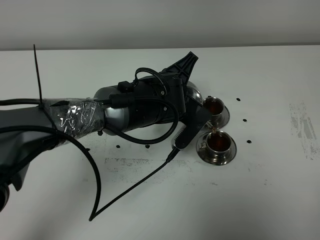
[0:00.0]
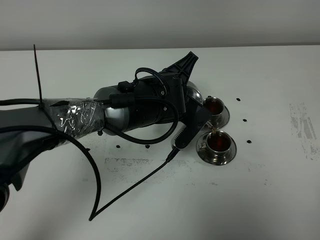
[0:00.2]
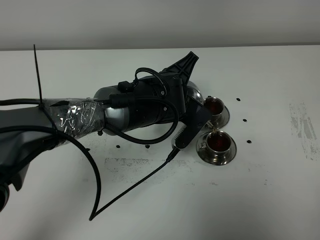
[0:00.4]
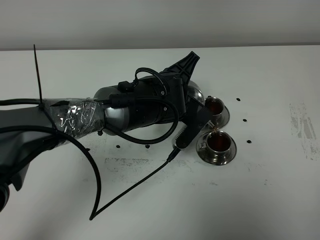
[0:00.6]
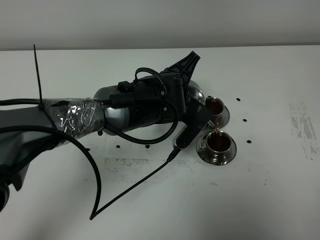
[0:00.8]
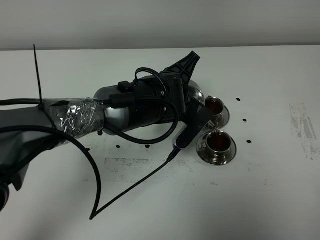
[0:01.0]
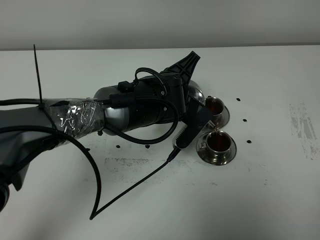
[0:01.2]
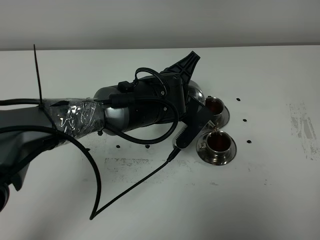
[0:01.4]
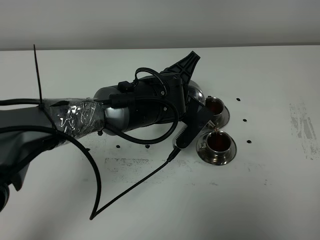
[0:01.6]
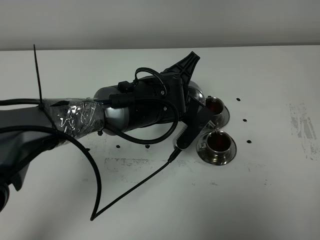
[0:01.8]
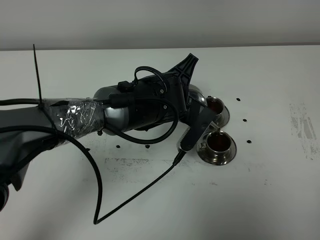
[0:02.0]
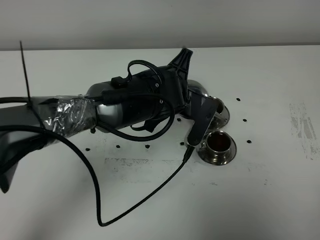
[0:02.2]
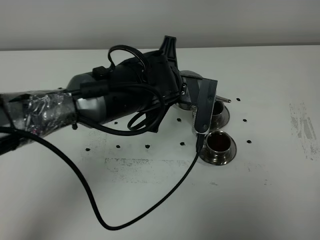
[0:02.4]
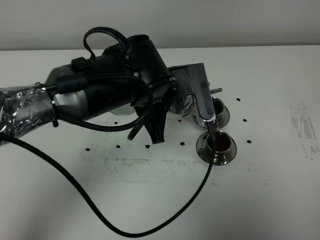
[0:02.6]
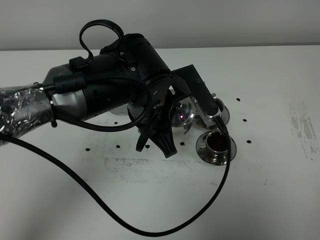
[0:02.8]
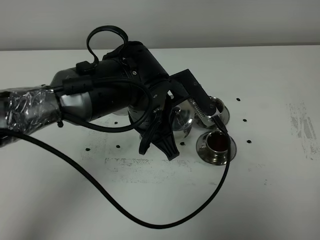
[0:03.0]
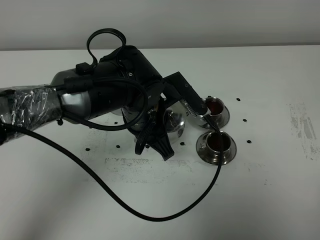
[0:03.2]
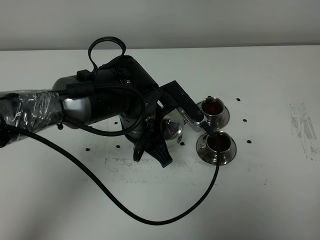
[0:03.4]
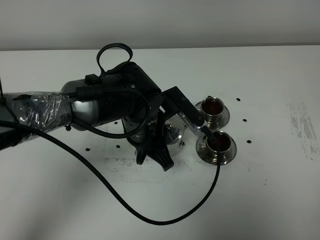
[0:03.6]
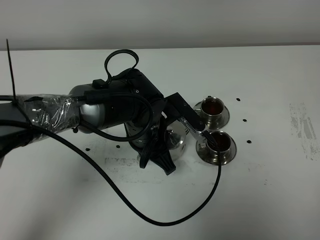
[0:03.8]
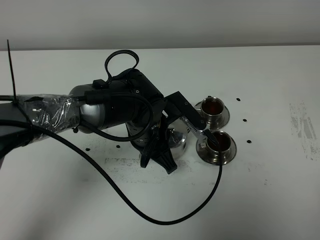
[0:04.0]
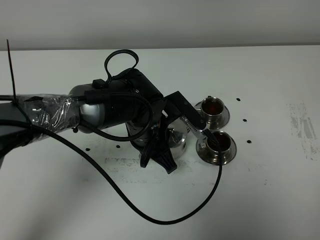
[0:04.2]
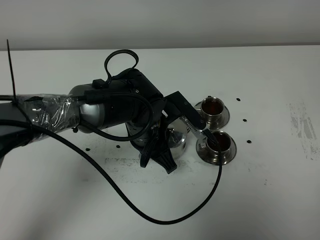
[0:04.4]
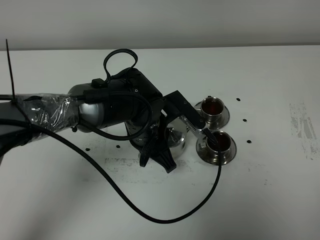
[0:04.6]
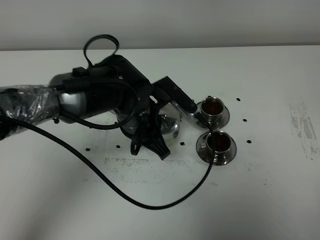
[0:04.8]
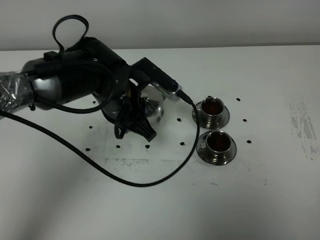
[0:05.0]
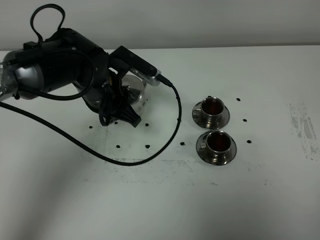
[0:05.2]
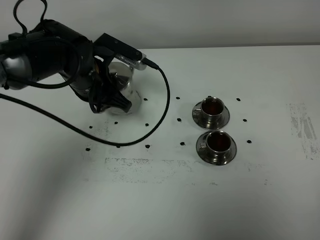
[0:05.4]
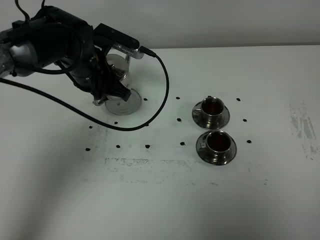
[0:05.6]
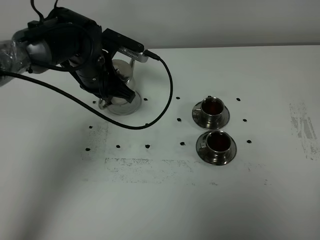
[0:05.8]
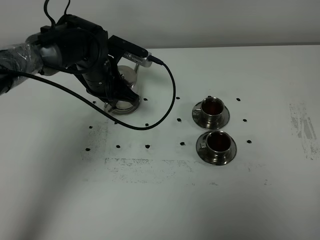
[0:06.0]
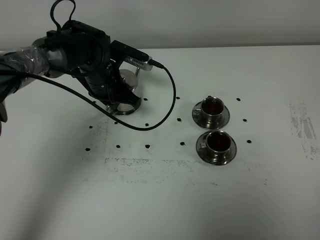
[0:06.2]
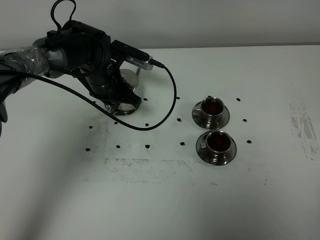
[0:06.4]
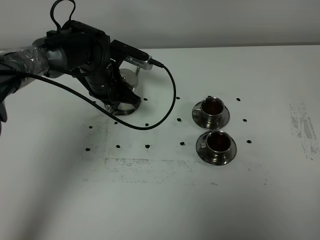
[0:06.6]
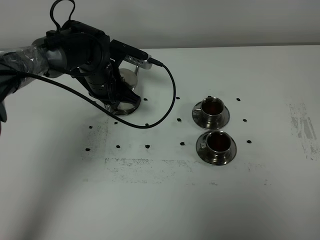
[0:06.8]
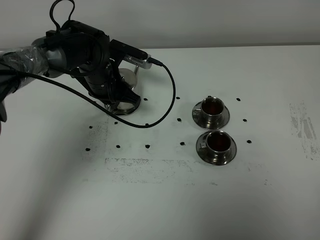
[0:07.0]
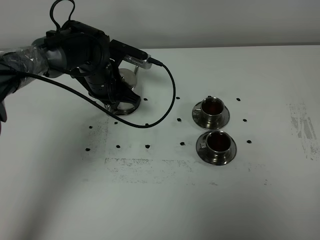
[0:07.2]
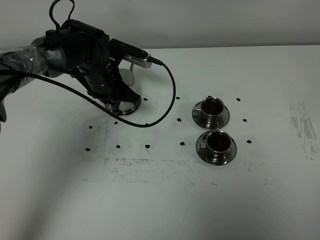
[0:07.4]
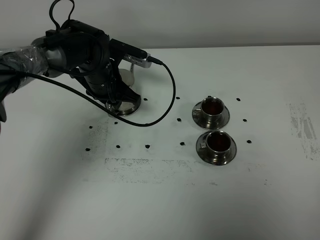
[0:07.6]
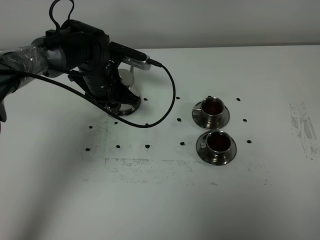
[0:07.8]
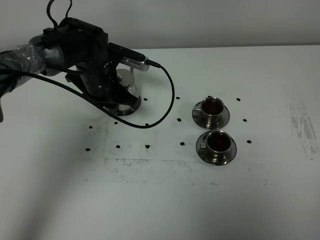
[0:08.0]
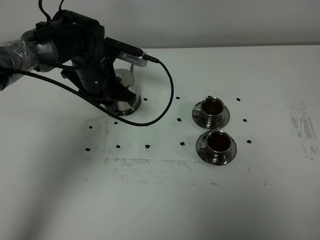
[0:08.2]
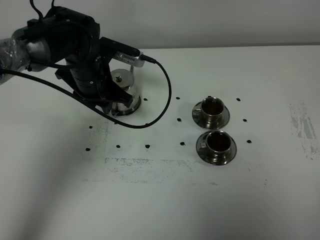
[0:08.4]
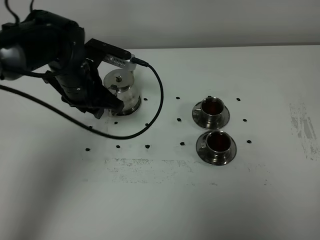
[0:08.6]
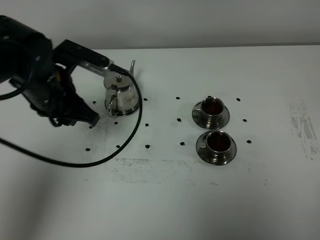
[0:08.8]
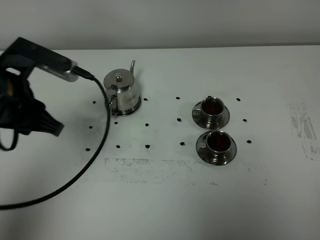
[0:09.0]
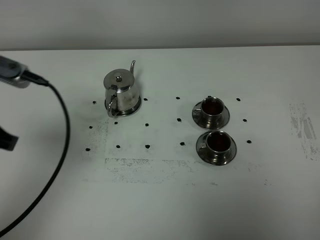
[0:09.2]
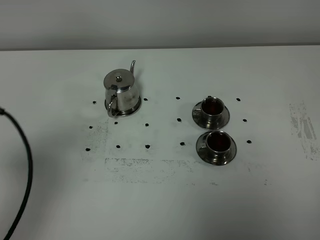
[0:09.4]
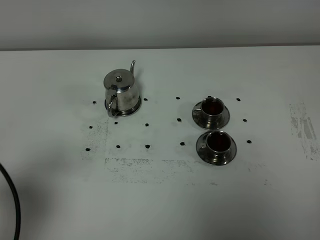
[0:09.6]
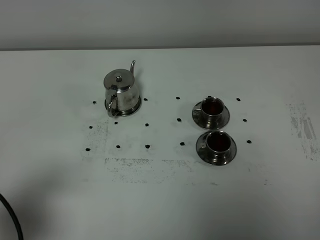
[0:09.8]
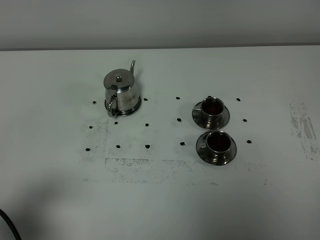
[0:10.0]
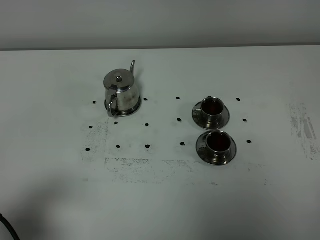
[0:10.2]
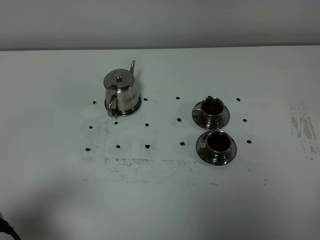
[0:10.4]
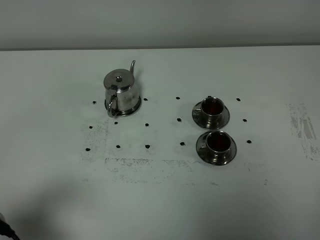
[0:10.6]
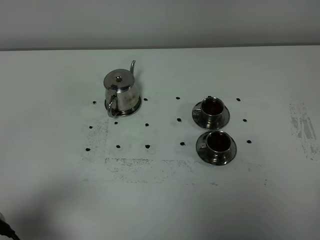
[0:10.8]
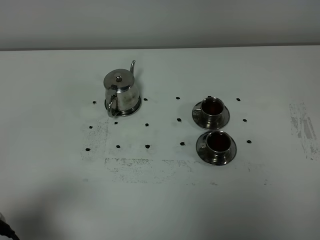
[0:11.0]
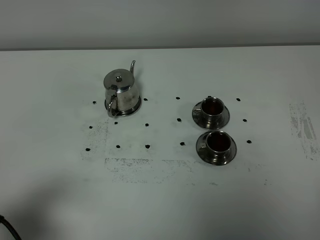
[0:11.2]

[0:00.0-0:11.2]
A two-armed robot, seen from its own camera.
Task of the whole recording: grasp the stainless steel teapot and pour the tea into the two stainless steel teacups one by one, put the stainless steel teapot back in its original place.
0:00.0 to 0:01.6: Both grippers stay about where they are.
0:01.6 to 0:03.2: The left gripper changes place by some 5 cm.
0:03.2 to 0:04.8: The grippers make only small movements.
0:04.8 to 0:06.4: The left gripper travels forward and to the left by approximately 15 cm.
0:06.4 to 0:08.0: The grippers make only small movements.
0:08.0 to 0:09.6: The left gripper goes roughly 40 cm backward, to the left and upward.
0:09.6 to 0:11.2: The left gripper moves downward, approximately 5 cm.

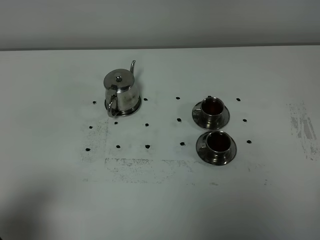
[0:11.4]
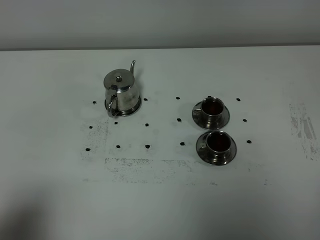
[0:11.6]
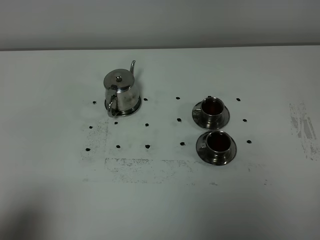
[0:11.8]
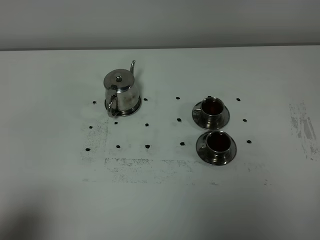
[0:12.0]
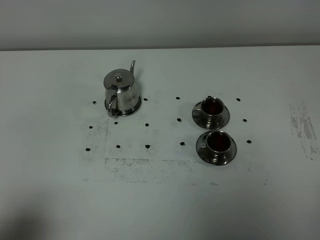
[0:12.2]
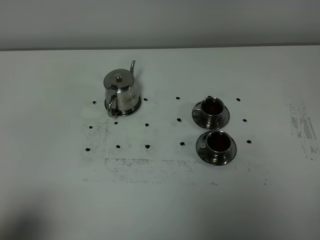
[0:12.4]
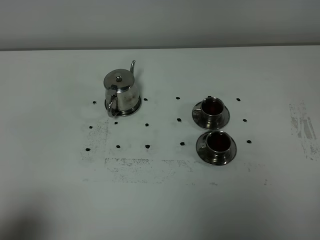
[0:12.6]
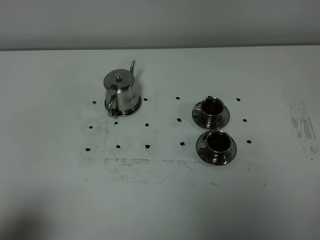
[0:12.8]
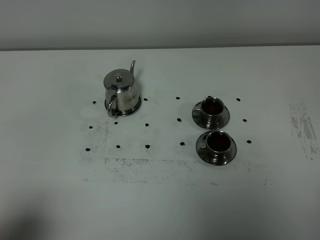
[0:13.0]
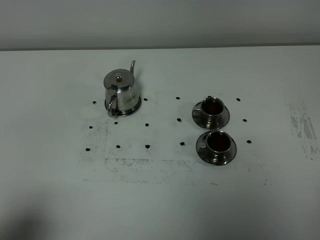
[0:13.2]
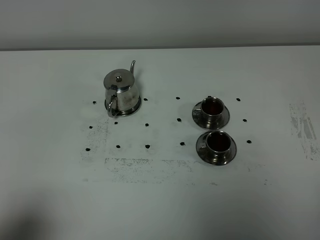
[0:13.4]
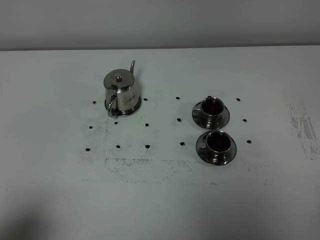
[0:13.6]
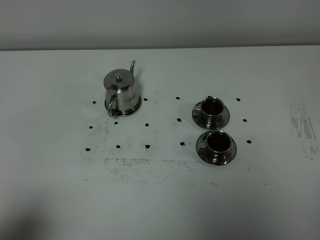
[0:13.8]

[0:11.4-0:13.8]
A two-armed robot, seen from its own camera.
Task of the whole recording: grasp the stainless steel teapot and pour the tea into the two stainless steel teacups one by one, put the stainless steel teapot back in its original place.
0:12.6 to 0:13.8: Both grippers stay put.

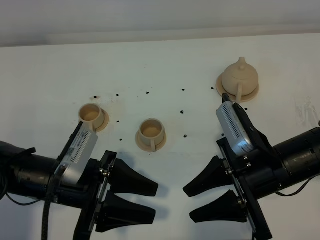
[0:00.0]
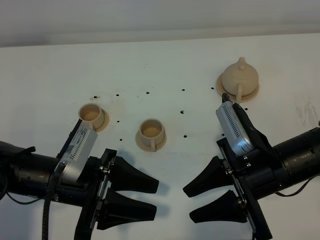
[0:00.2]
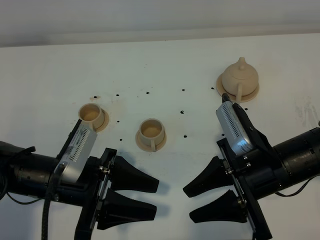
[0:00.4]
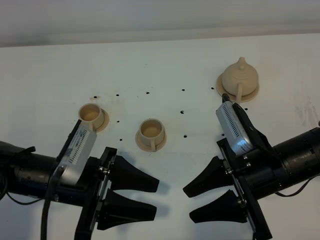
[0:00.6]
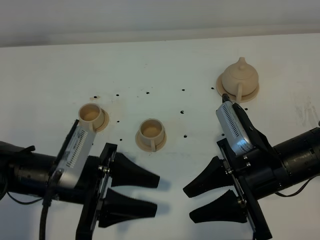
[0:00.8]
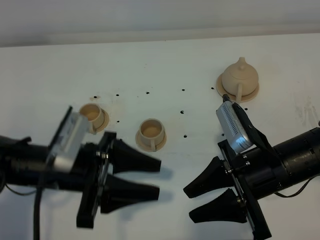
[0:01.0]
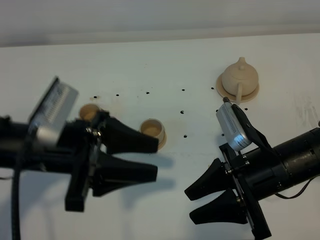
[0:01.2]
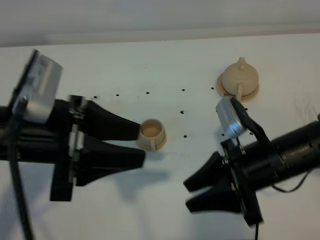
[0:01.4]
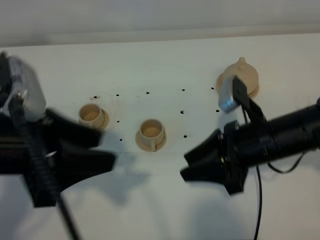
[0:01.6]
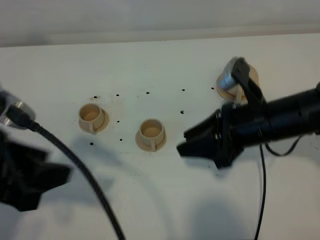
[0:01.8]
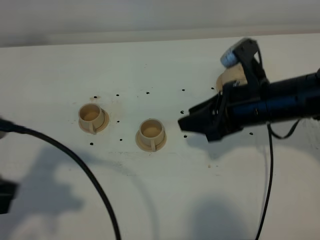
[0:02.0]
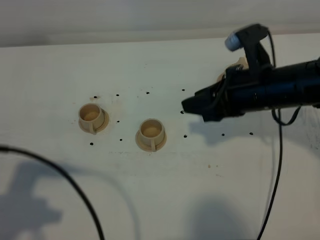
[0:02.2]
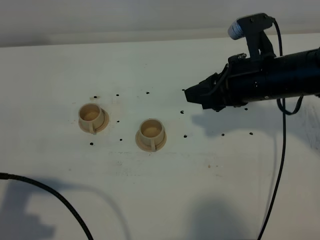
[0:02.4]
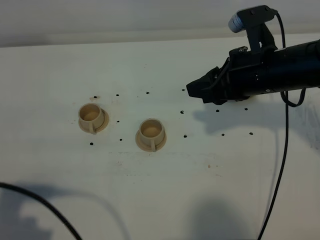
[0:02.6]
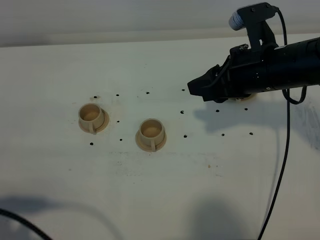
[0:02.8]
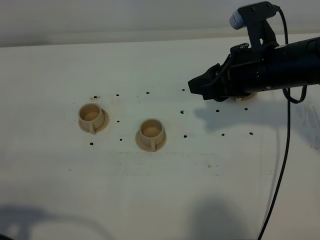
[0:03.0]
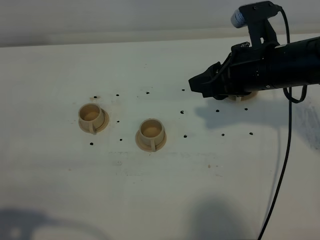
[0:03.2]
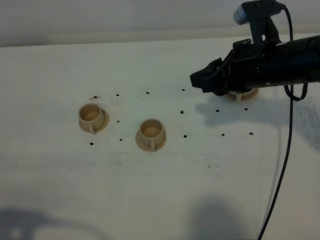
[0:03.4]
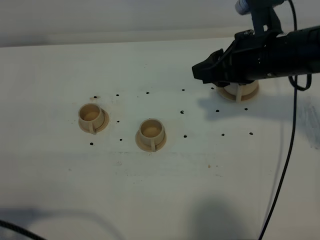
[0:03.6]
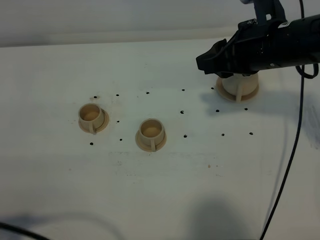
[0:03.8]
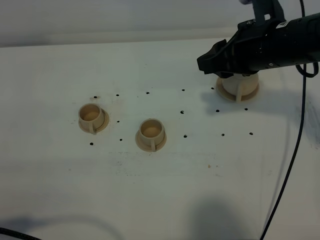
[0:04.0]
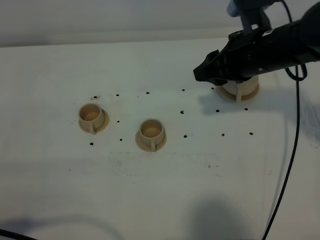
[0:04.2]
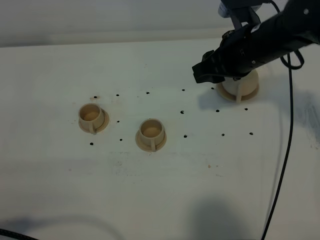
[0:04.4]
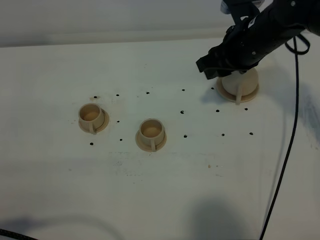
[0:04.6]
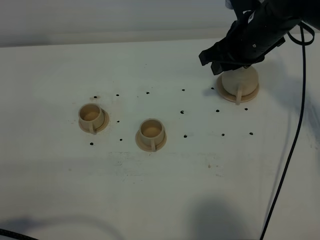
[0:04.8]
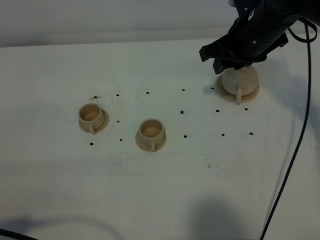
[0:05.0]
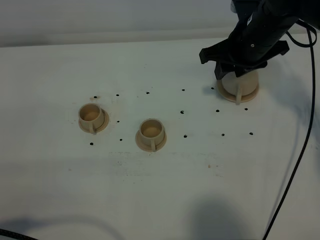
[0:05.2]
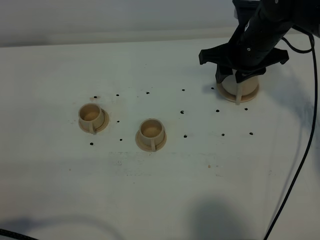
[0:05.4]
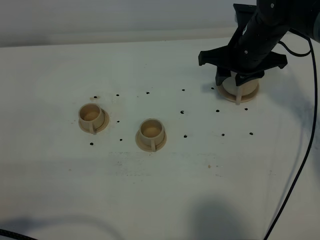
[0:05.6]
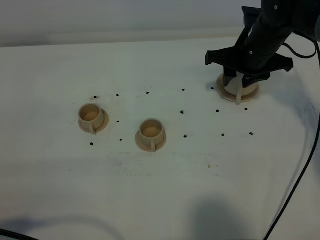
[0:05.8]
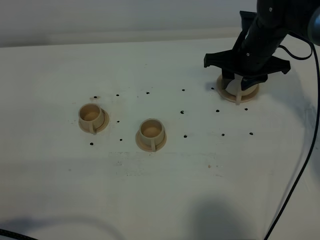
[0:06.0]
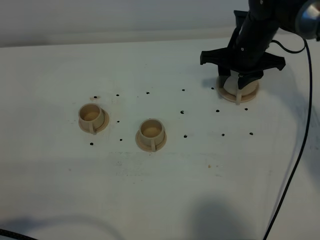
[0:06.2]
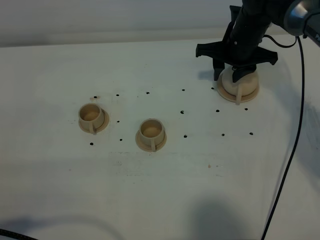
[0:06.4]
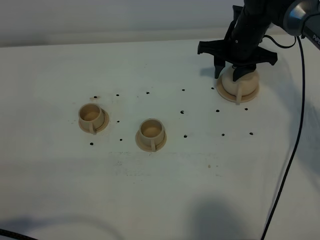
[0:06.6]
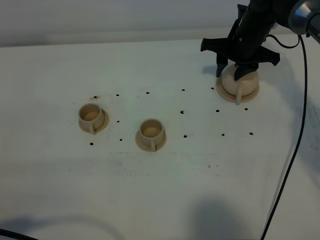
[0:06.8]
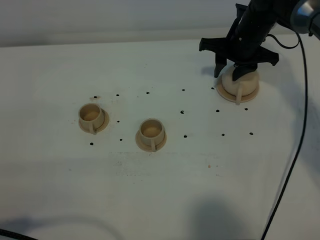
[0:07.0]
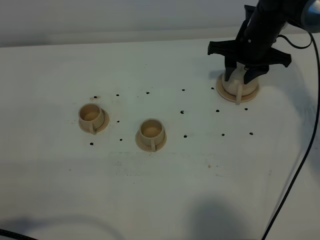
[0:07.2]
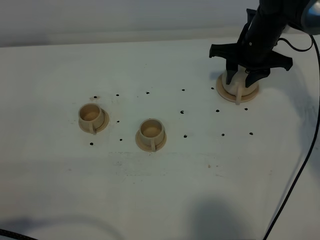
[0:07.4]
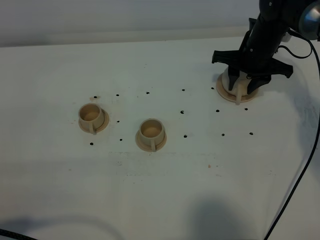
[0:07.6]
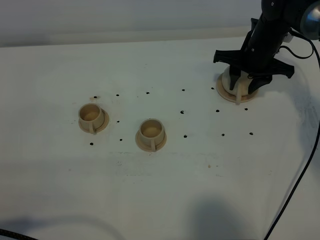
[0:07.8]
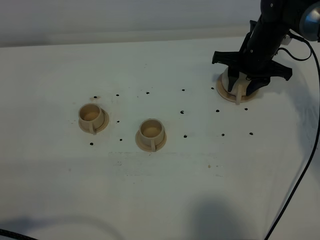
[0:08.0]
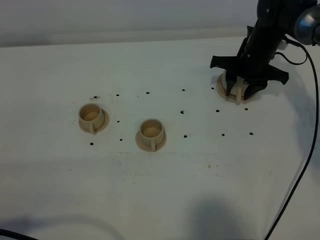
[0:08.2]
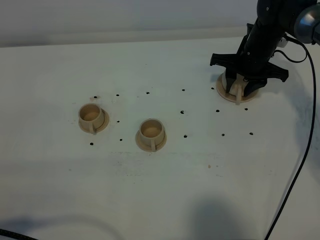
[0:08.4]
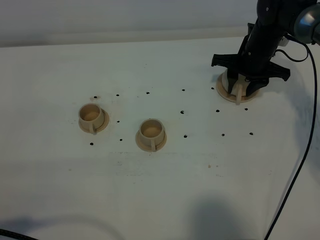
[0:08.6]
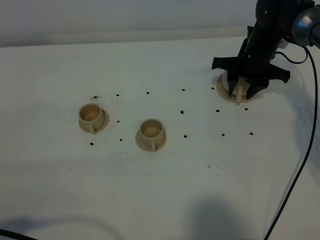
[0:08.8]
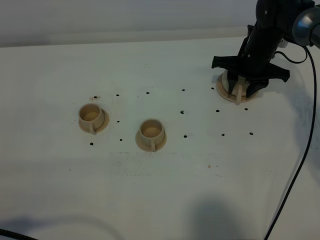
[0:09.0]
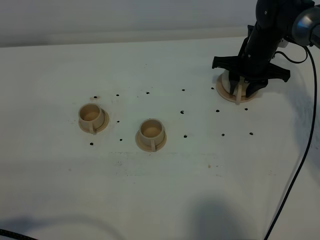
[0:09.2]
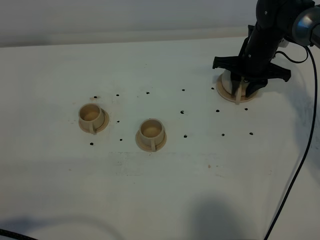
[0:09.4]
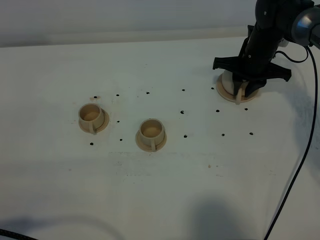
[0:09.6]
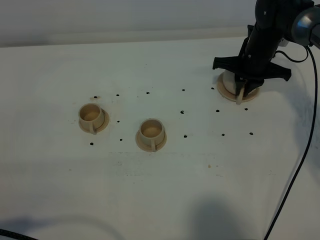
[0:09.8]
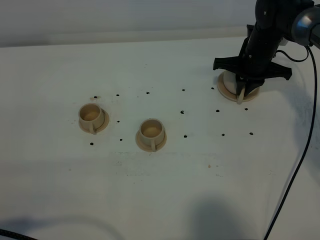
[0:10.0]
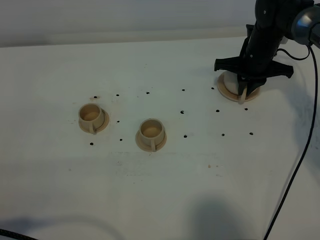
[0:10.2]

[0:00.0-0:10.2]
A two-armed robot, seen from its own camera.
Task of the whole recording: grasp the brown teapot and pour the tea into the two brown teacups one by one, put the brown teapot back in its original place.
0:00.0 to 0:01.4: The left gripper goes about 15 cm upward.
0:01.4 to 0:03.0: The right gripper moves forward and upward, about 10 cm; the left gripper goes roughly 20 cm backward and to the left.
0:03.0 to 0:04.4: The right gripper goes approximately 5 cm forward.
0:04.4 to 0:05.8: The right gripper ends up approximately 5 cm from where it was.
0:07.2 to 0:08.8: The right gripper goes some 5 cm downward.
0:08.8 to 0:10.2: The right gripper closes its fingers.
